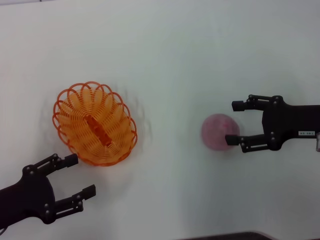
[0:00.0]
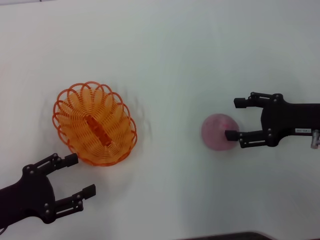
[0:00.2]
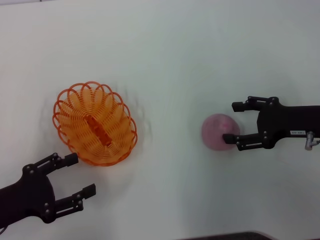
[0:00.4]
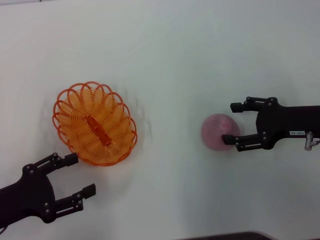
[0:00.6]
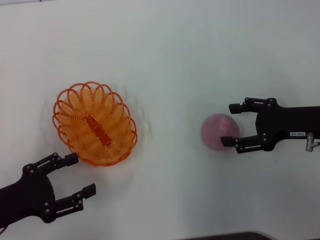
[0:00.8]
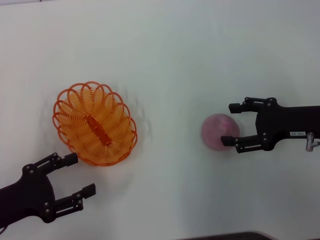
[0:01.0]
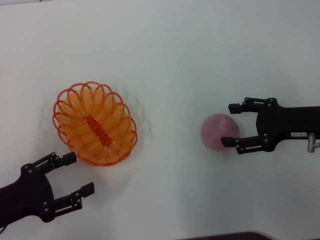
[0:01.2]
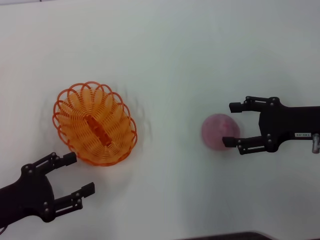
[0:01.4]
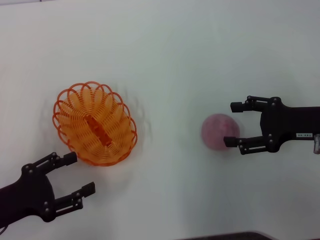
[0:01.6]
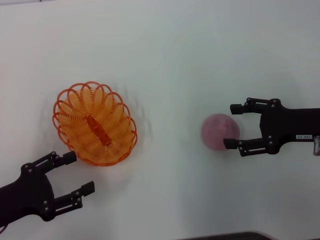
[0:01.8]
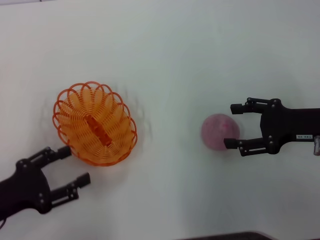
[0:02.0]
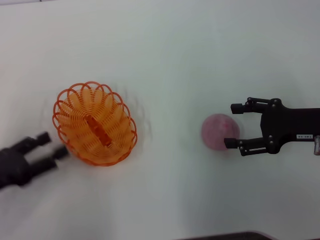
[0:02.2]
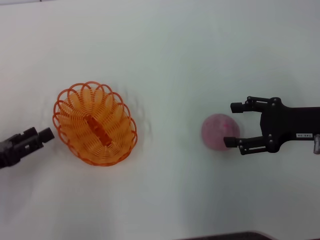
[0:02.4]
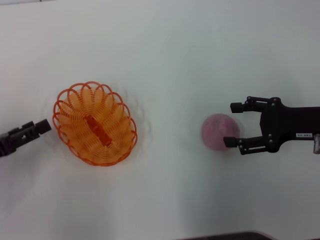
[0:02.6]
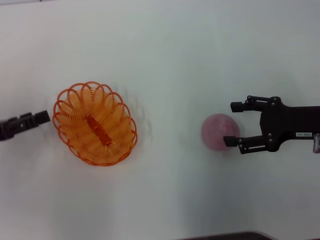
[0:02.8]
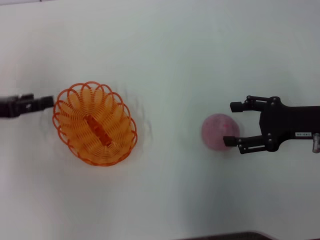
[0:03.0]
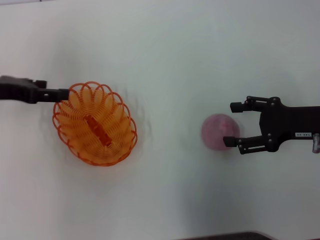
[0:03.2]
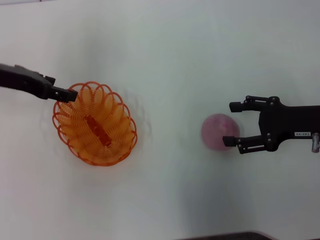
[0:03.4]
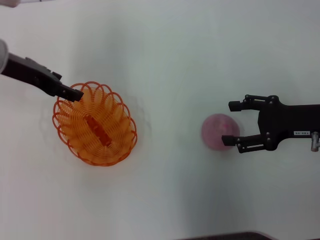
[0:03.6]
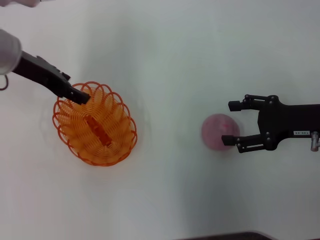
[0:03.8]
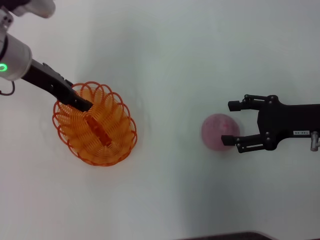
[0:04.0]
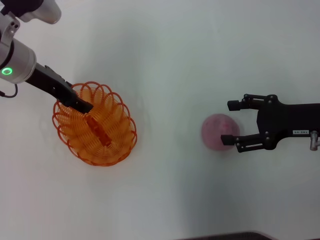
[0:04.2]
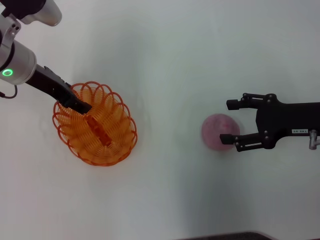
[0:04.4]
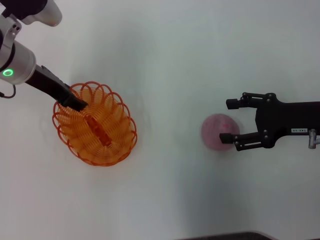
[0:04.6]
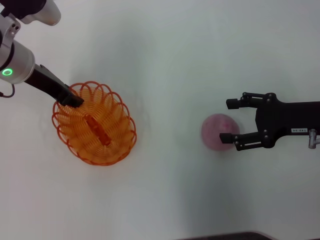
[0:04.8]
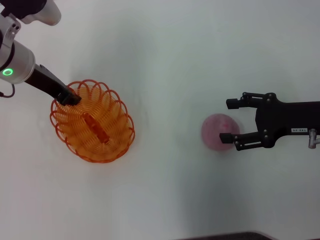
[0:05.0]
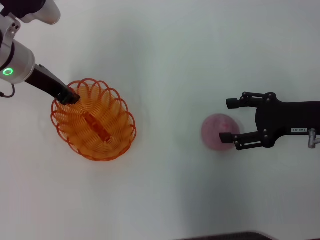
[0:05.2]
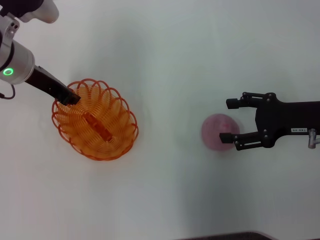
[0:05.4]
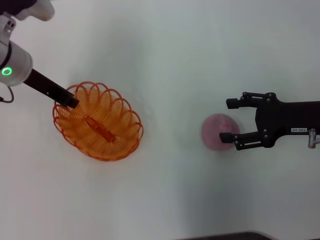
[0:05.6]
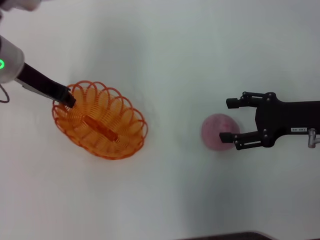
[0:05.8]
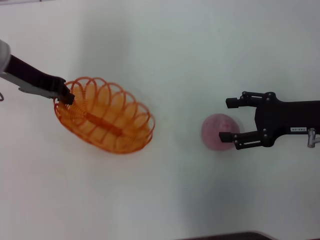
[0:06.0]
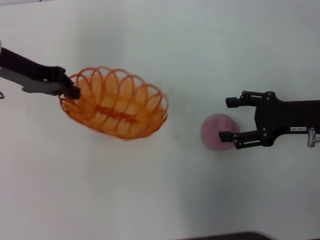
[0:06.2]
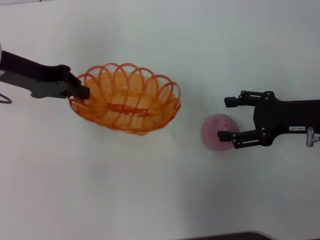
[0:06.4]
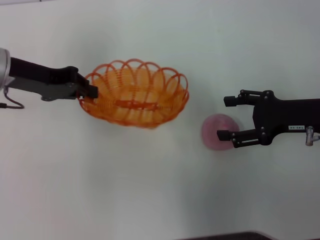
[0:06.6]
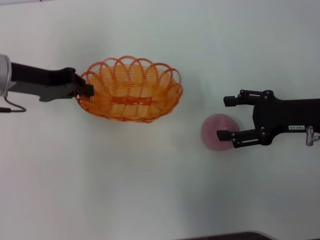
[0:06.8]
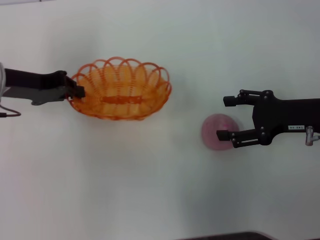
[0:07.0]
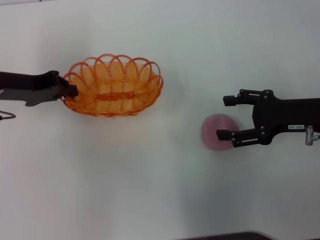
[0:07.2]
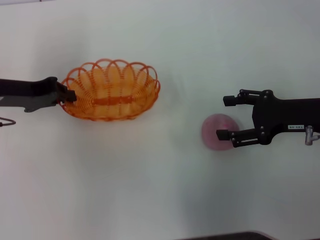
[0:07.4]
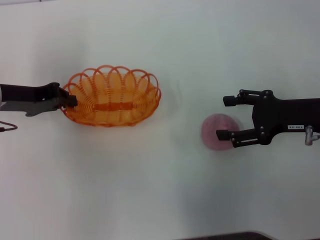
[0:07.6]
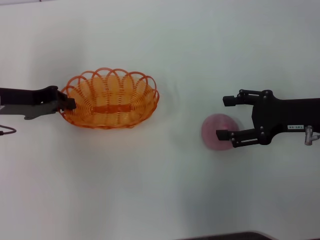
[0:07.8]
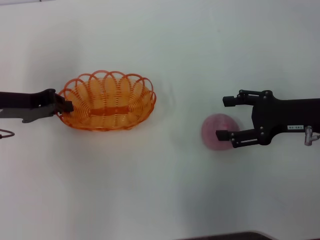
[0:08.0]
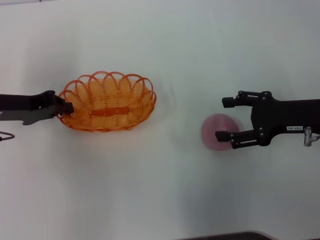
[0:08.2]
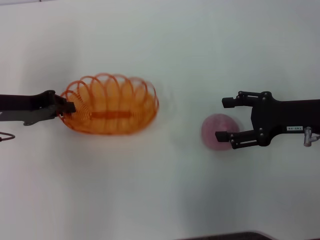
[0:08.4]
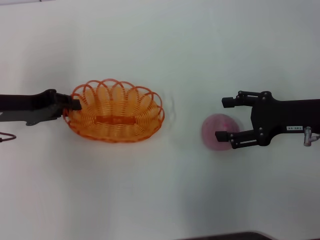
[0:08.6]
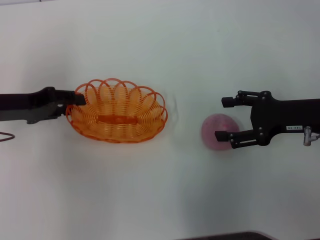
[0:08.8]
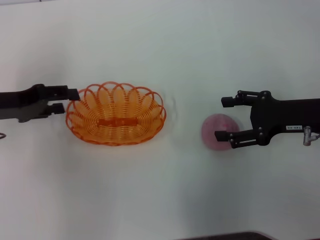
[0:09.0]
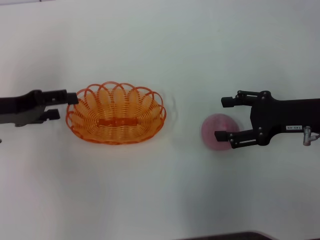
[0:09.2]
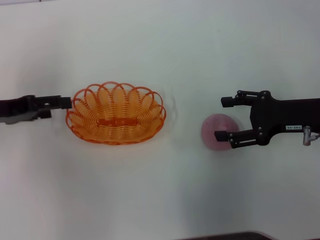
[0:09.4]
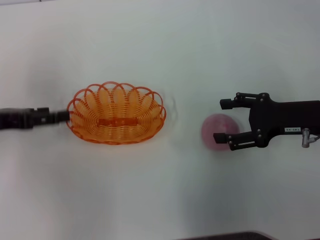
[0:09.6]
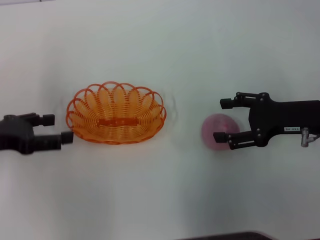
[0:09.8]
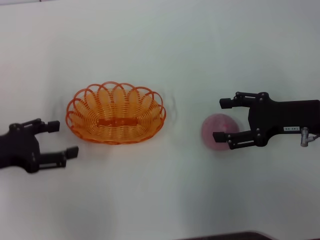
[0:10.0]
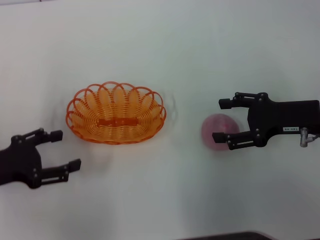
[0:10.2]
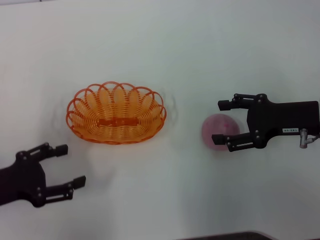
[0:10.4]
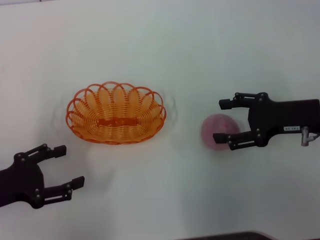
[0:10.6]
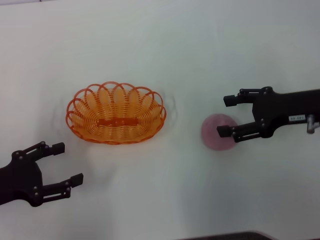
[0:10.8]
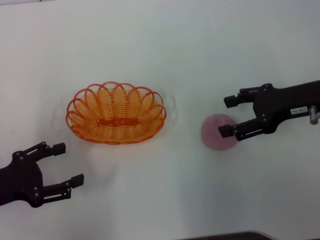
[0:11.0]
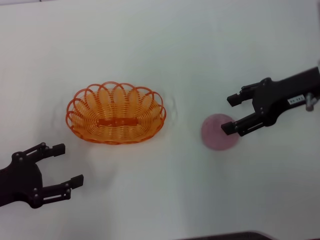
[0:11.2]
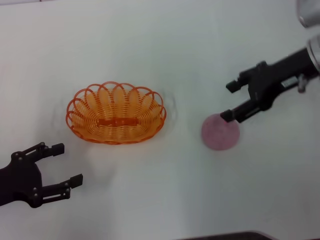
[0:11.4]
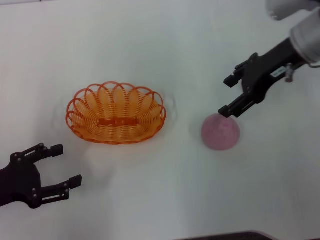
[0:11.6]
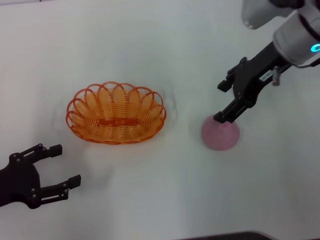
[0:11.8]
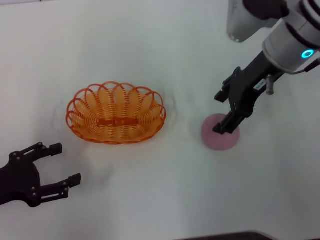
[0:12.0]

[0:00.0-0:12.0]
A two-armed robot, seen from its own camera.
Step, 0:00.0 to 0:06.0: Pick up the basket with the left gripper.
Step, 0:06.2 to 0:09.6: Place the basket in the center of view with the left gripper.
0:00.0 to 0:01.6: The grippers move only a little.
0:01.6 to 0:03.0: The left gripper heads forward and upward, covering approximately 15 cm.
0:03.0 to 0:04.4: The left gripper goes about 15 cm to the right and forward.
0:04.4 to 0:06.0: The left gripper closes its fingers.
0:06.0 to 0:07.6: The left gripper heads downward, covering approximately 5 cm.
0:07.6 to 0:09.0: The left gripper opens up.
0:09.0 to 0:10.4: The left gripper travels backward and downward by roughly 10 cm, and opens up.
0:10.4 to 0:12.0: The right gripper is displaced to the left, upward and forward by roughly 15 cm.

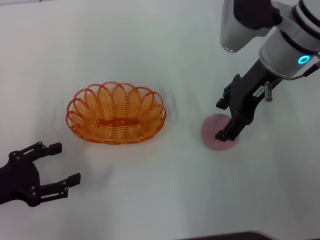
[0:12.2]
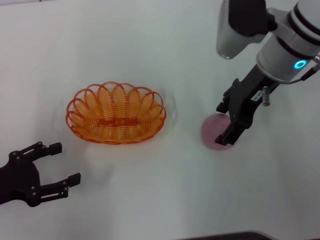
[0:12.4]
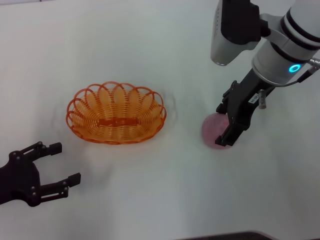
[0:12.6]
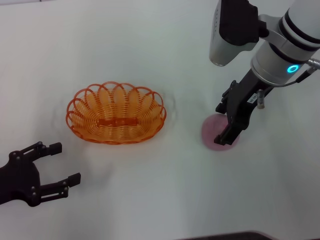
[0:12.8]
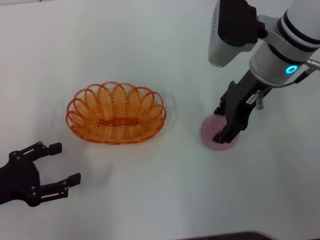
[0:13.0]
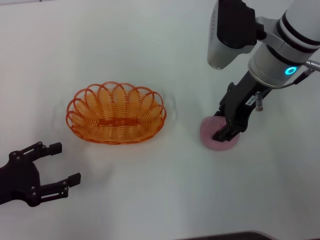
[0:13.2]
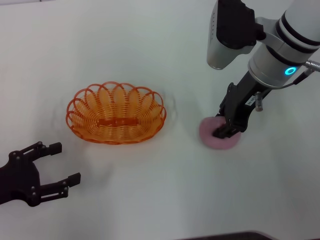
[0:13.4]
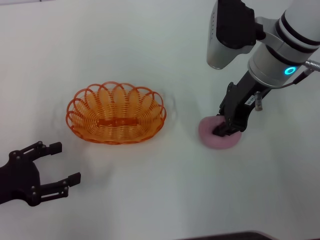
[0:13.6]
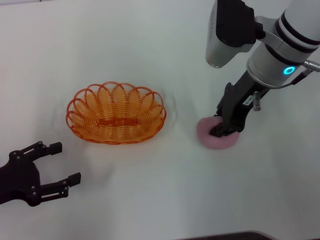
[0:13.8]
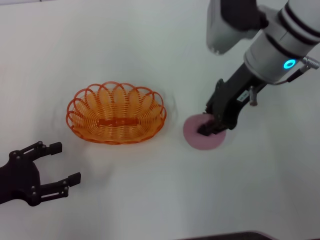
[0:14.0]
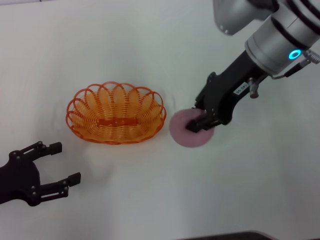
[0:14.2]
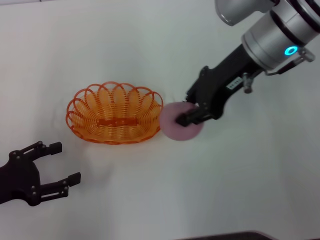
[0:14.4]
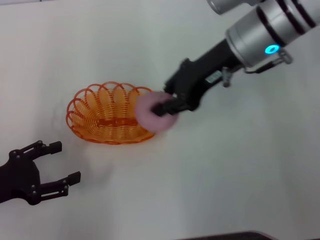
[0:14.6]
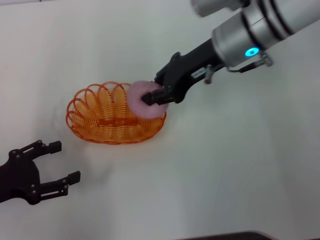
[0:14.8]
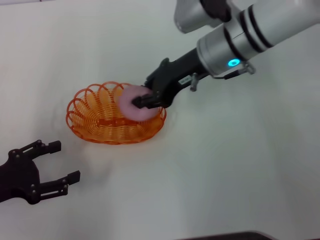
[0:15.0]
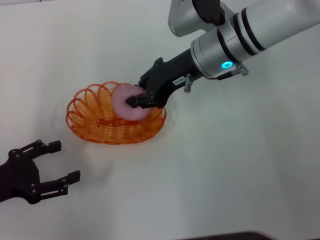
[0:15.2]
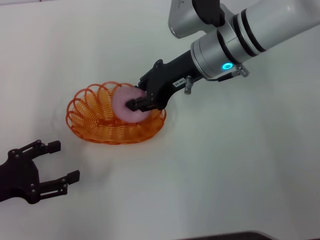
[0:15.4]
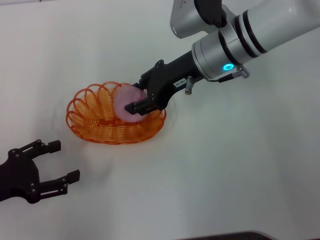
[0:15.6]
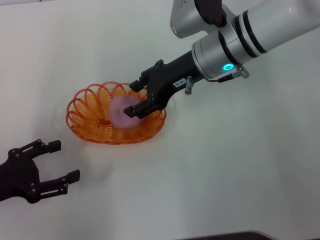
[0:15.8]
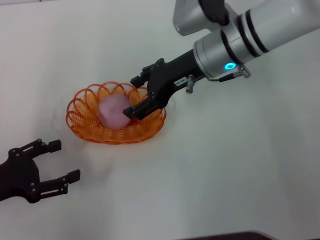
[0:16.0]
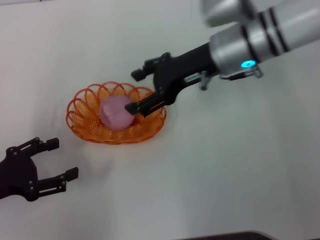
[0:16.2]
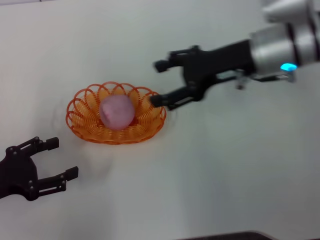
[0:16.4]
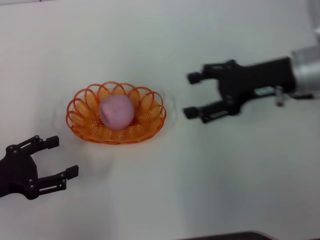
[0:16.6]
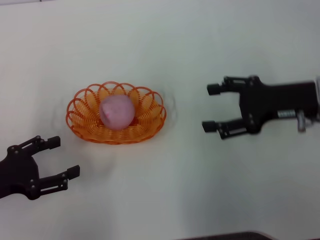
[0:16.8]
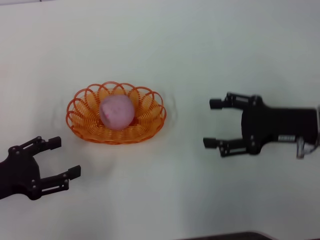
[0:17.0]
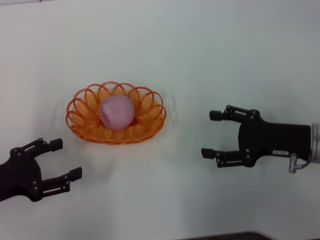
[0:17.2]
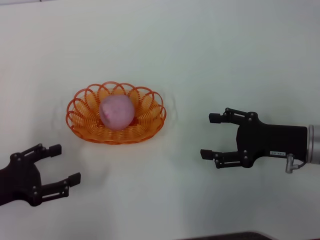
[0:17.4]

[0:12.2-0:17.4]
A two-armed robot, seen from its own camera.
Step, 0:14.2 to 0:16.2: Place the peach into the basket with the right gripper.
0:12.2 to 0:14.0: The right gripper closes up.
0:14.0 to 0:15.6: The right gripper changes place by roughly 5 cm.
0:15.6 to 0:17.4: The right gripper travels to the right, backward and downward by about 20 cm, and opens.
